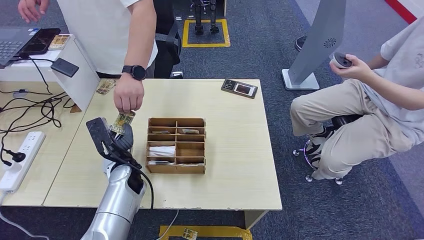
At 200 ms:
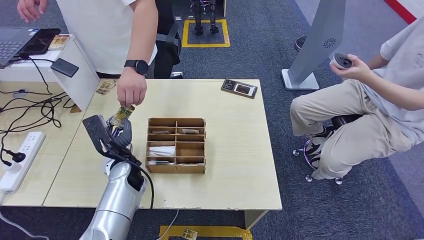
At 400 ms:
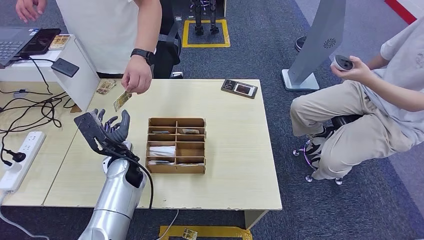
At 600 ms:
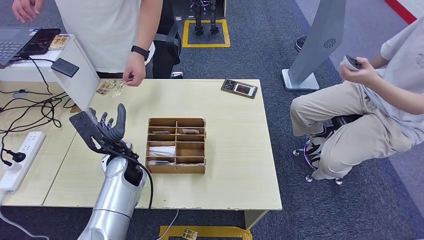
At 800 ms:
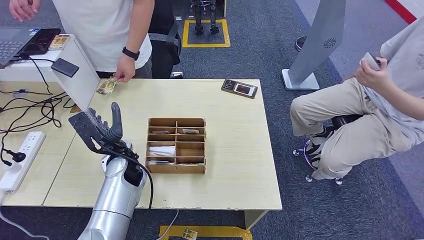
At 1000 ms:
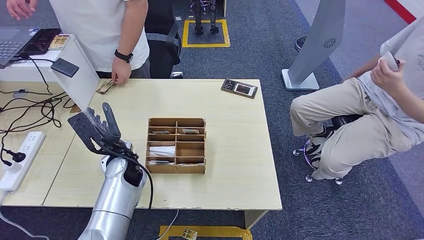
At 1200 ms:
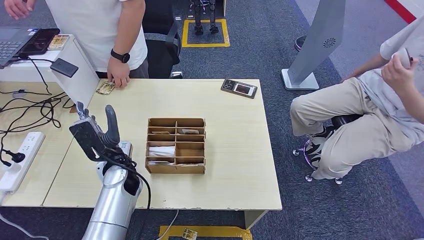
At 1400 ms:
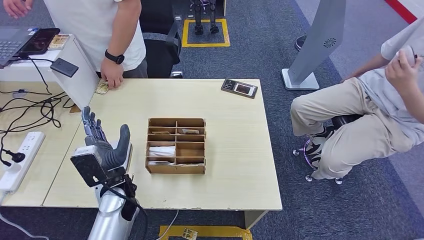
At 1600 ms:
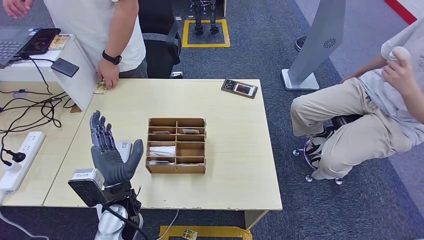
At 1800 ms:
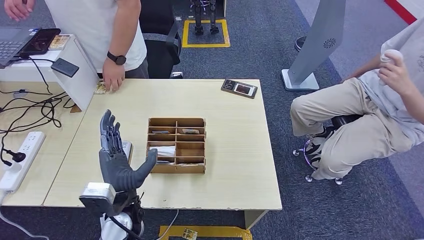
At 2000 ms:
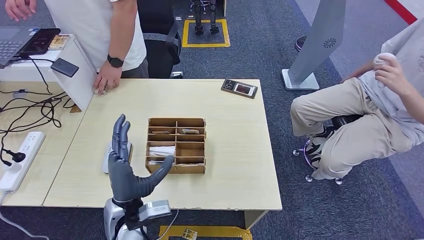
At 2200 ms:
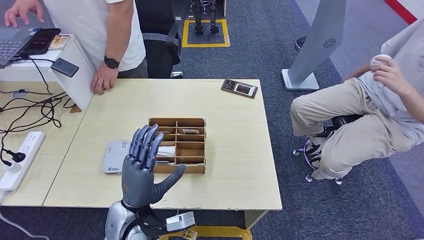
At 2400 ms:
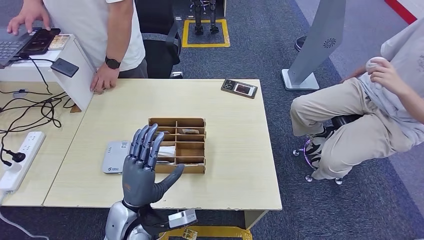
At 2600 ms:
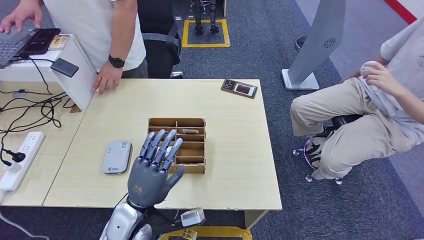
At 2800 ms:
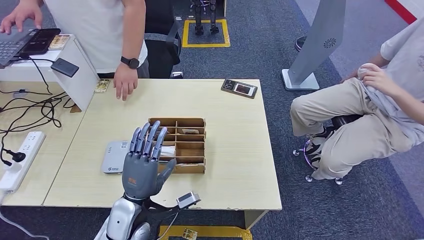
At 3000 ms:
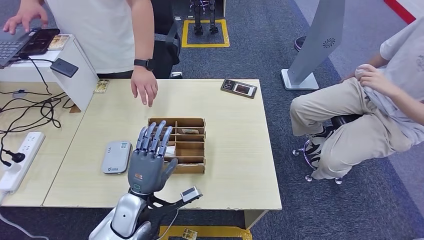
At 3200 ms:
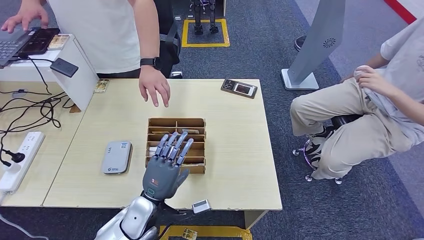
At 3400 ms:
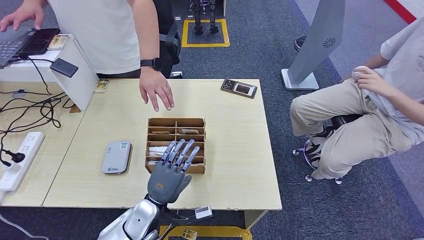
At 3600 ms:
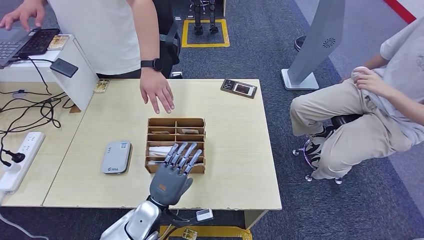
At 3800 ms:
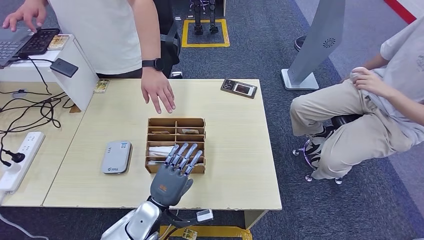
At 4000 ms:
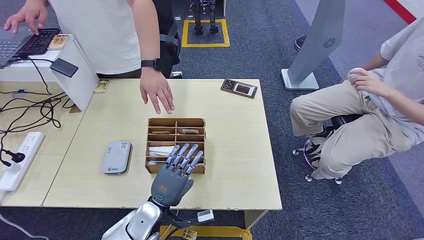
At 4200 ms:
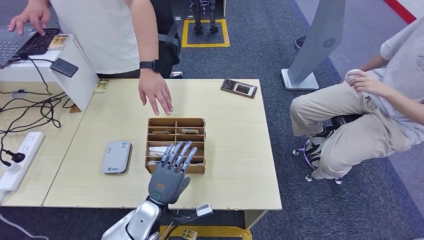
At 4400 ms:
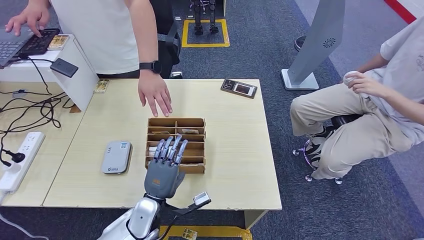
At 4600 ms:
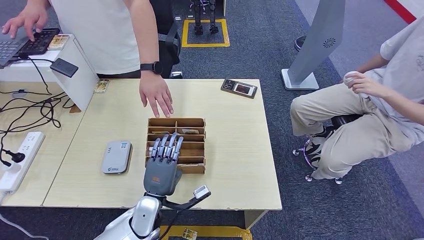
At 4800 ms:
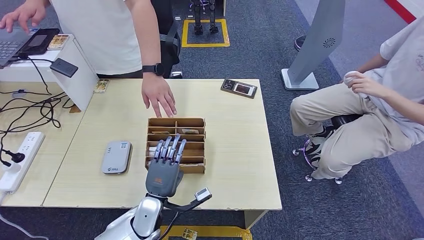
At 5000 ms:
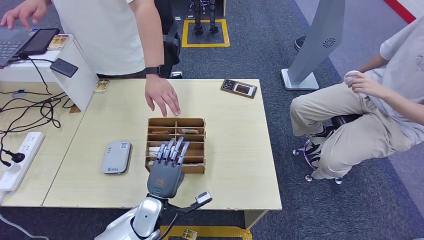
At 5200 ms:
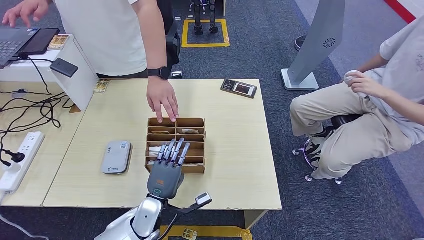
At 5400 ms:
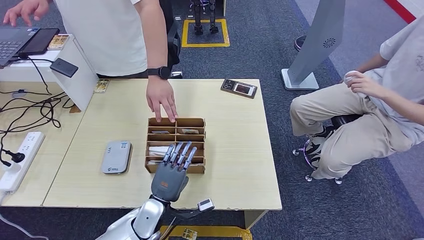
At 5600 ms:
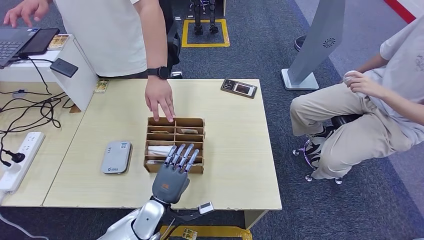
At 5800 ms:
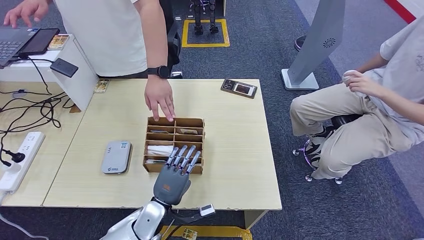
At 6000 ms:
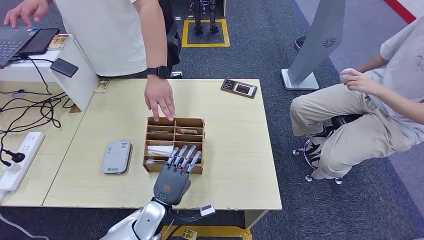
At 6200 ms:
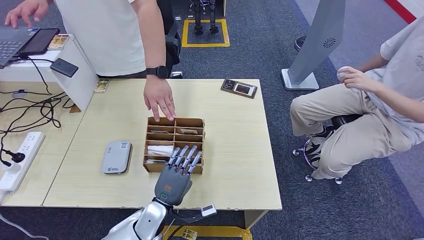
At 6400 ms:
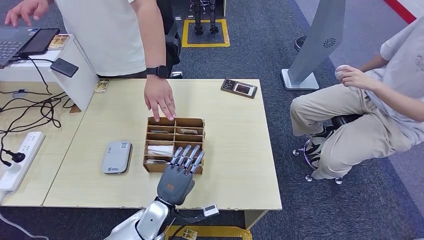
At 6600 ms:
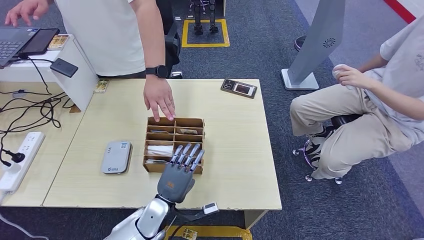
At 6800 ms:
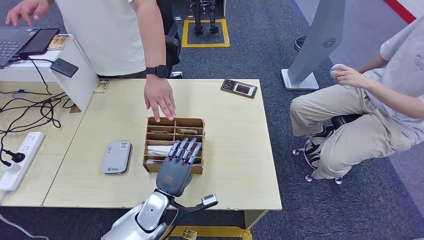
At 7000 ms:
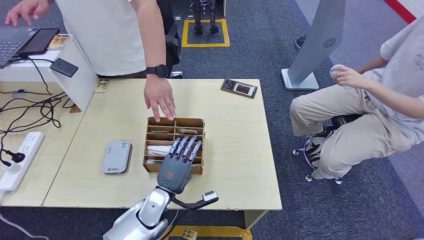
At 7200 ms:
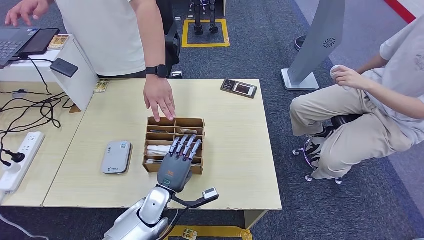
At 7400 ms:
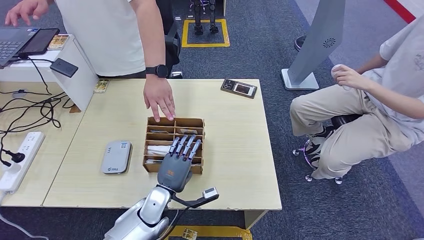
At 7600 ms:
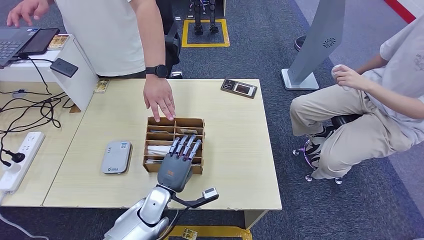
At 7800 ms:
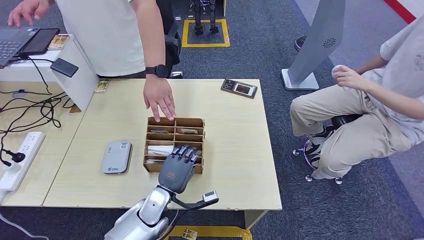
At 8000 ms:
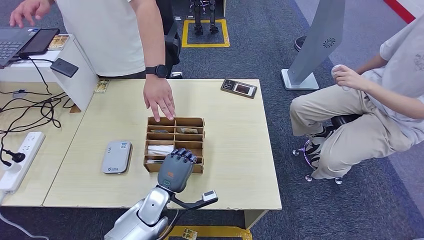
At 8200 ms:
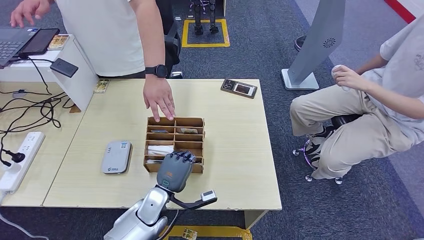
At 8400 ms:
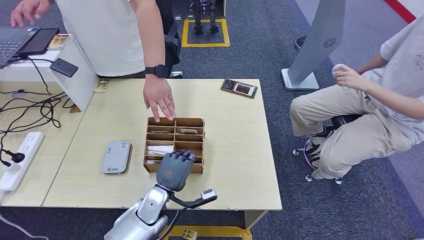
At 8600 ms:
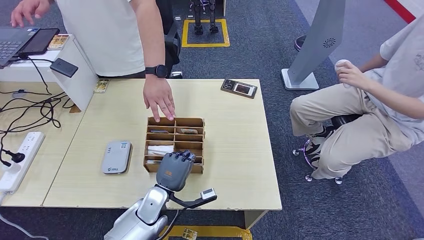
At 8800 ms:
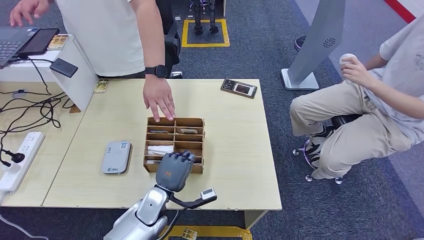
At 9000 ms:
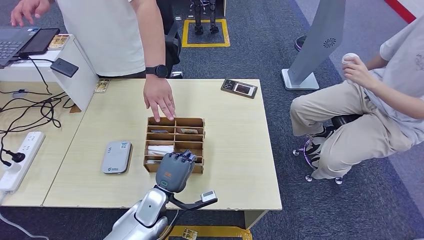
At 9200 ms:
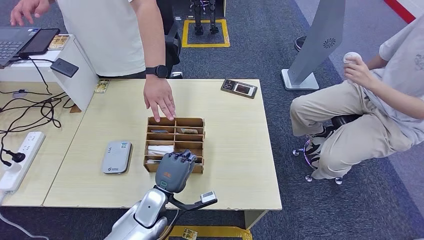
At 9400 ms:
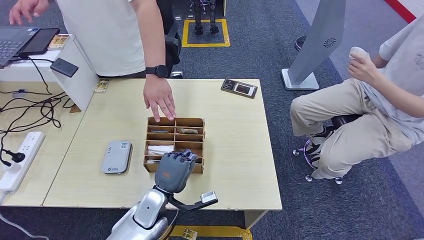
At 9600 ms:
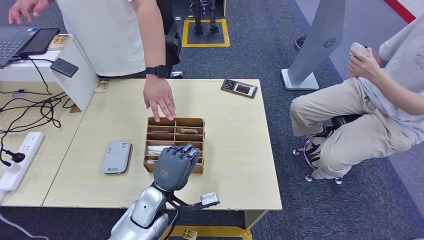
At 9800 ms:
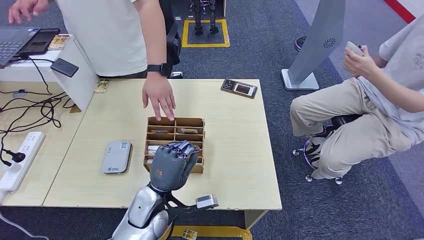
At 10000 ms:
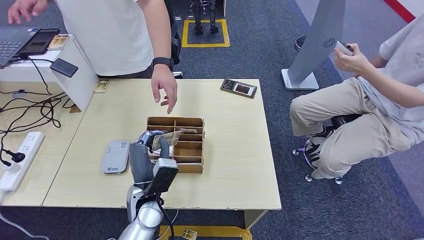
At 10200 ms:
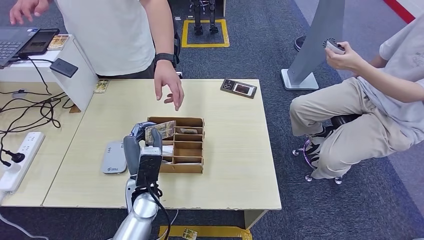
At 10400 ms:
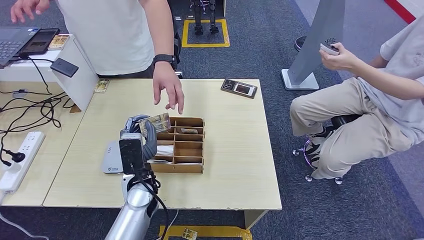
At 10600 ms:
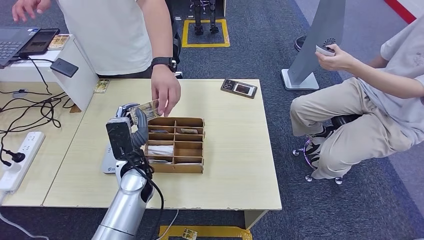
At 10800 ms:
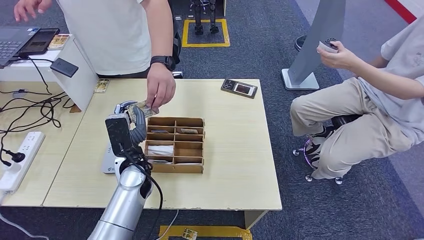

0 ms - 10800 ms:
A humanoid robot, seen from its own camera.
Step, 600 ms - 8800 ms: Pick up the room key from the key card box.
Step, 9200 ms - 10800 ms: Hand the room key to the person.
0 ms - 1600 ms: The left hand goes roughly 10 cm backward.
3000 ms - 4600 ms: The left hand moves downward, roughly 5 cm.
4600 ms - 9200 ms: The hands make only small movements.
9200 ms - 10800 ms: The left hand shifts about 10 cm upward and forward.
